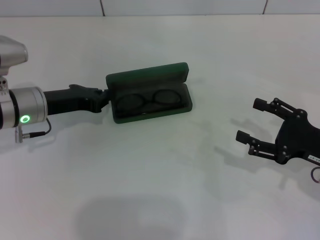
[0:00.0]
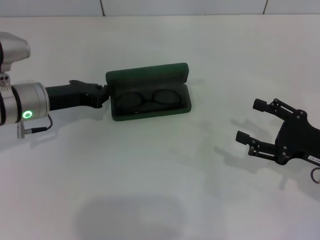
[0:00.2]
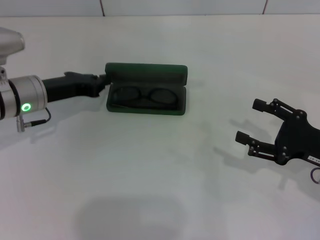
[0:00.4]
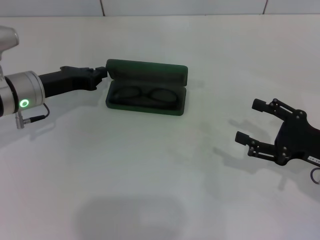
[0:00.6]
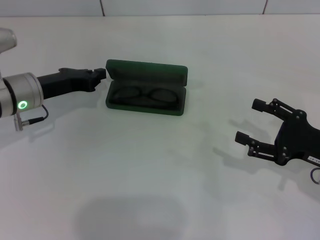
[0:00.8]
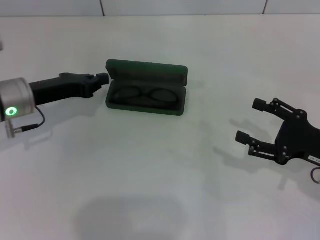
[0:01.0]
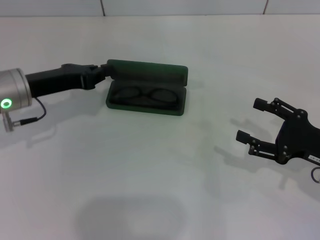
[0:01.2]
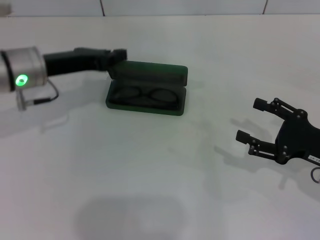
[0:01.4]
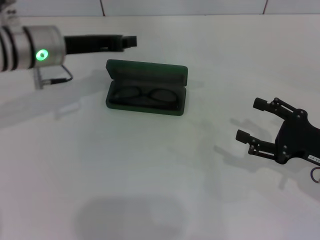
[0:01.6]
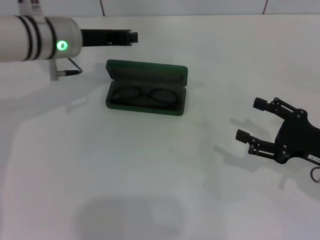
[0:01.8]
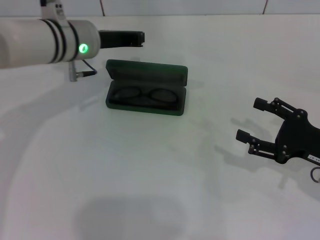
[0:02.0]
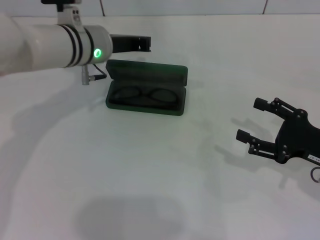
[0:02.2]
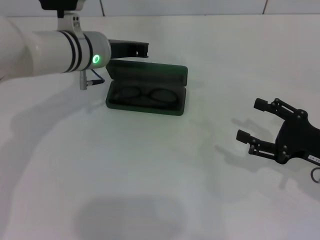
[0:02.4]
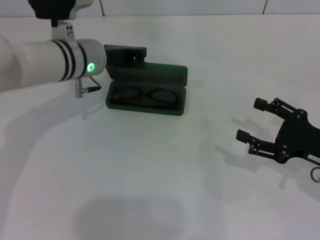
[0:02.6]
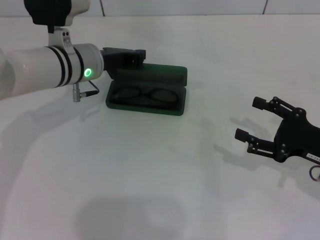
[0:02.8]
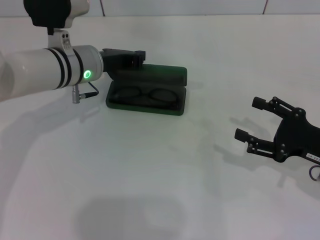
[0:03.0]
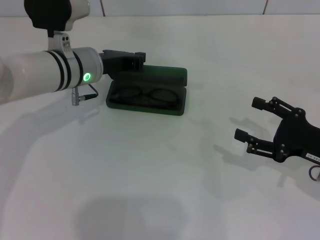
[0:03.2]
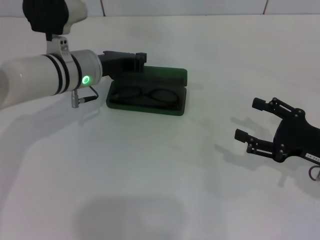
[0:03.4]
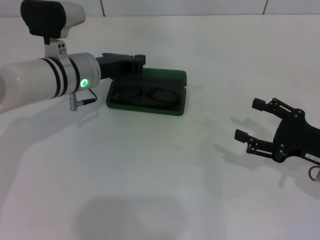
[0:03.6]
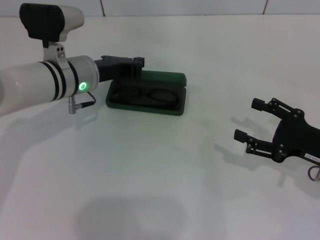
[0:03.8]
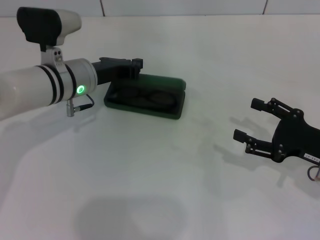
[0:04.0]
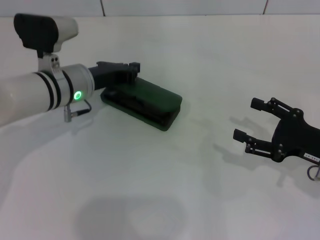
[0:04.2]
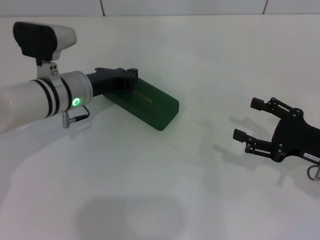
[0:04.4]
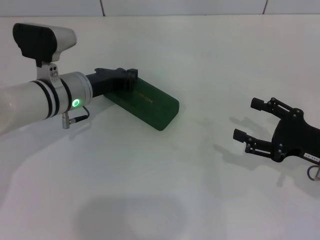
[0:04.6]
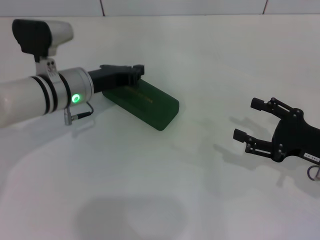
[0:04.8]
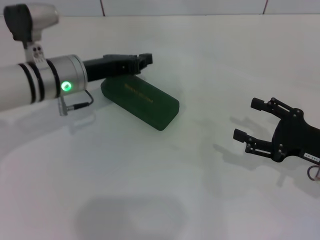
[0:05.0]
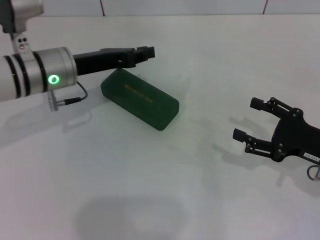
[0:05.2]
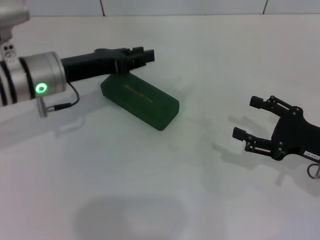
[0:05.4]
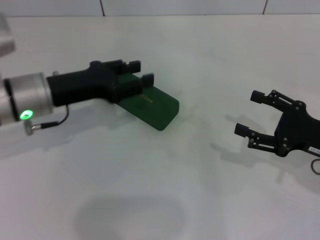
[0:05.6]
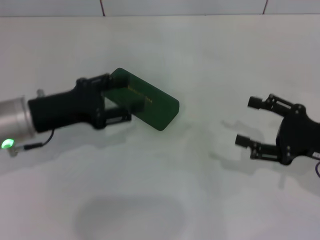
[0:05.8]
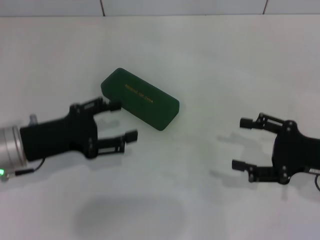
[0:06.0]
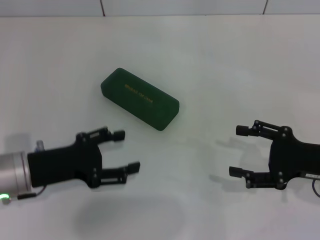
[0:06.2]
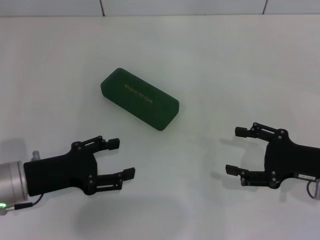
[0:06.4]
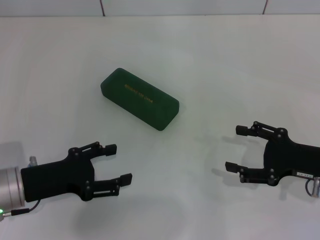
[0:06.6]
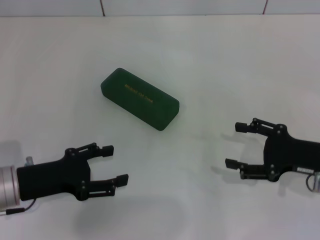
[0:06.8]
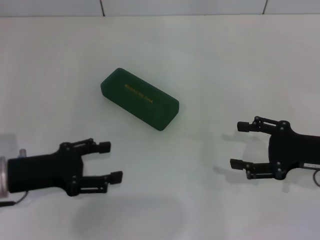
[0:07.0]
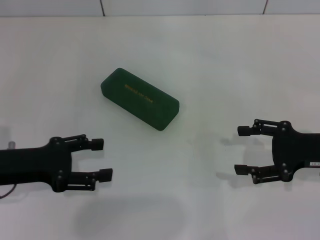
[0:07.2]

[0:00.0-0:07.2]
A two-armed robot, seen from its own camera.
Step, 0:00.0 to 0:04.4: Close the glasses case with your left hand.
0:00.0 to 0:01.4: The left gripper heads upward, covering about 5 cm.
0:01.4 to 0:02.8: The left gripper moves to the right, some 5 cm.
0:02.8 to 0:04.4: There are only small adjustments of the grippers.
0:04.4 to 0:05.8: The left gripper shifts roughly 10 cm backward and to the left, and opens its fingers.
0:05.8 to 0:07.2: The left gripper ends up some 5 cm from where it was, and opens up.
